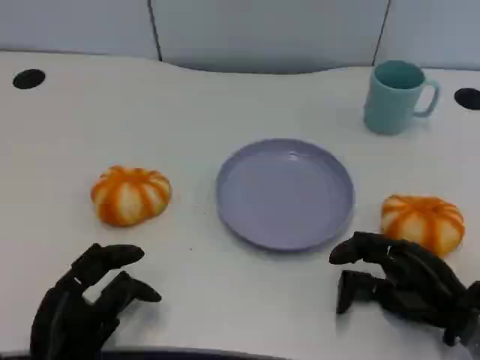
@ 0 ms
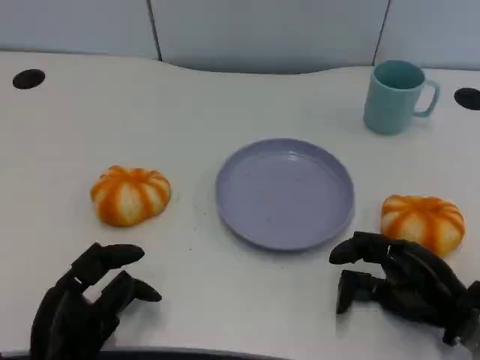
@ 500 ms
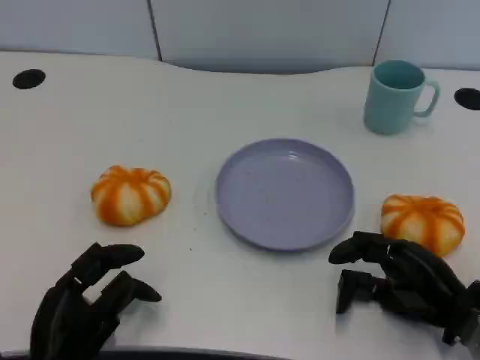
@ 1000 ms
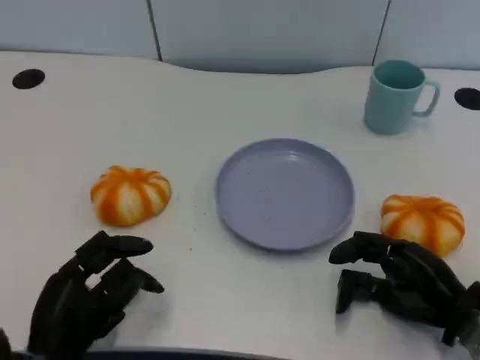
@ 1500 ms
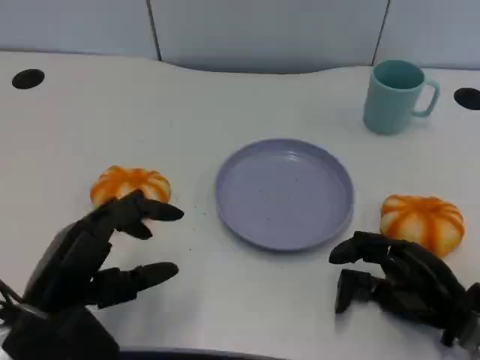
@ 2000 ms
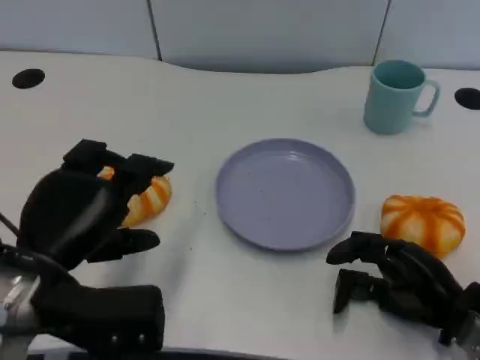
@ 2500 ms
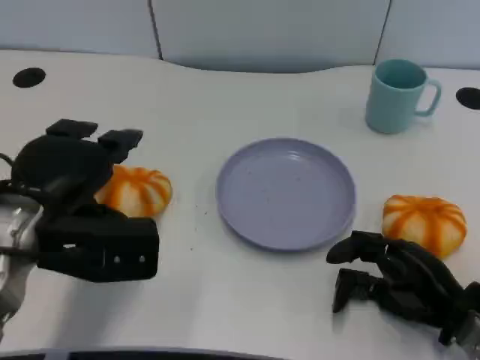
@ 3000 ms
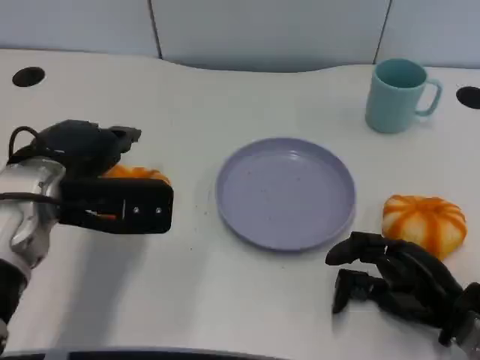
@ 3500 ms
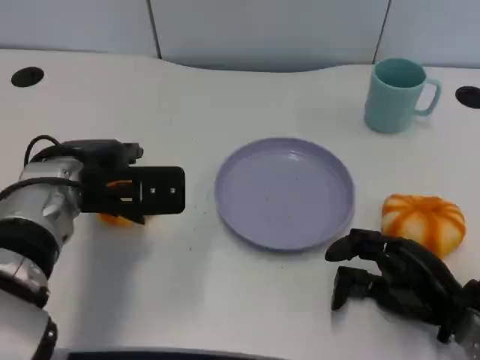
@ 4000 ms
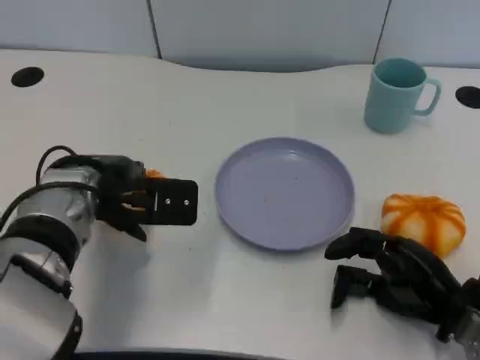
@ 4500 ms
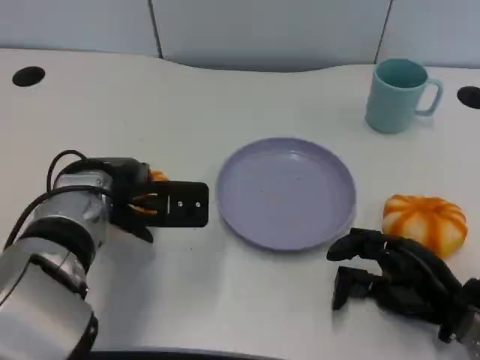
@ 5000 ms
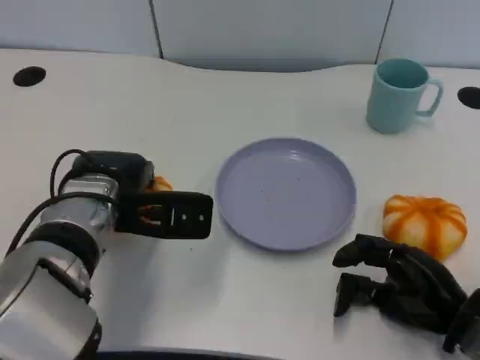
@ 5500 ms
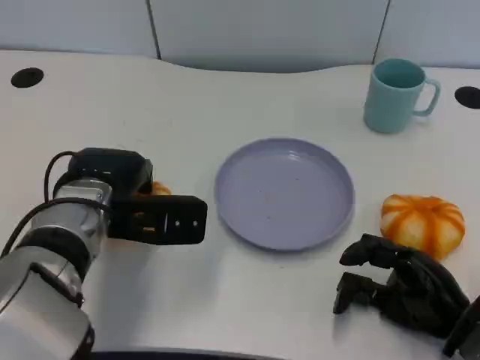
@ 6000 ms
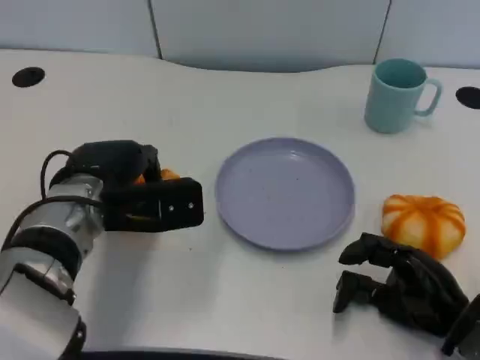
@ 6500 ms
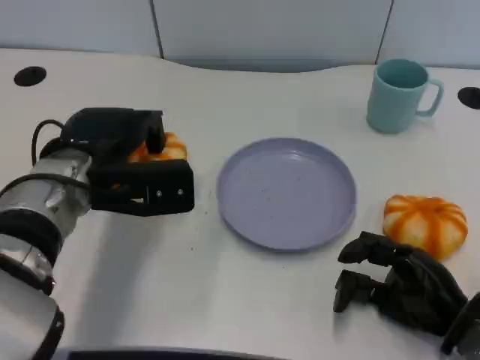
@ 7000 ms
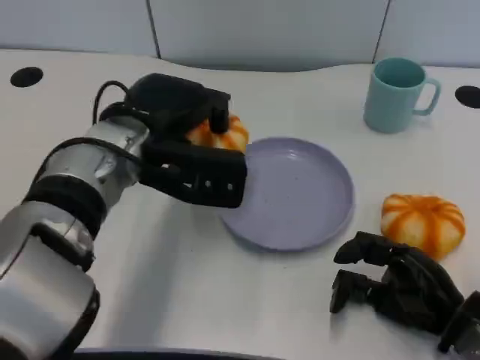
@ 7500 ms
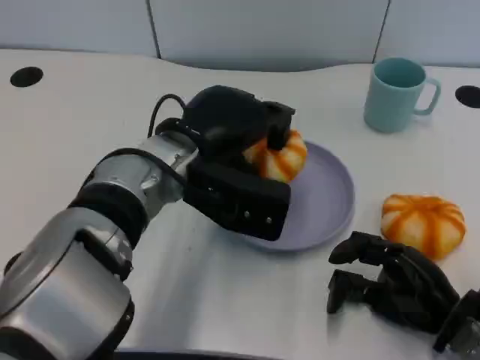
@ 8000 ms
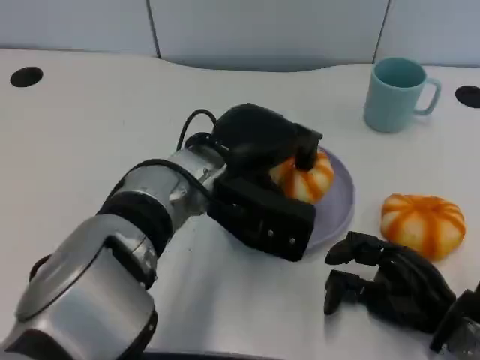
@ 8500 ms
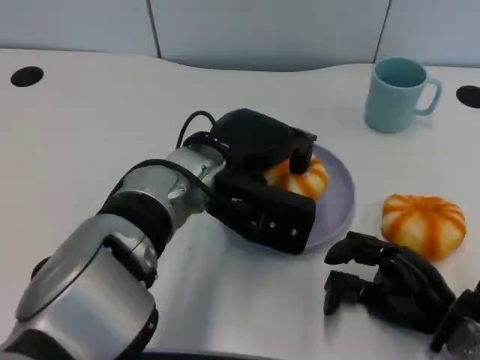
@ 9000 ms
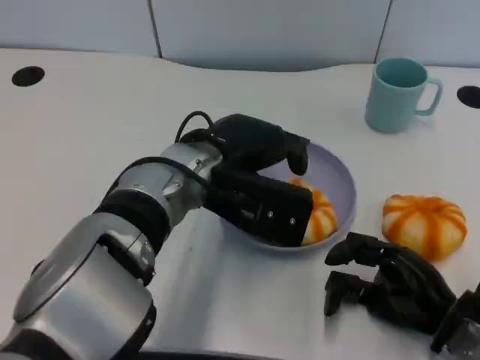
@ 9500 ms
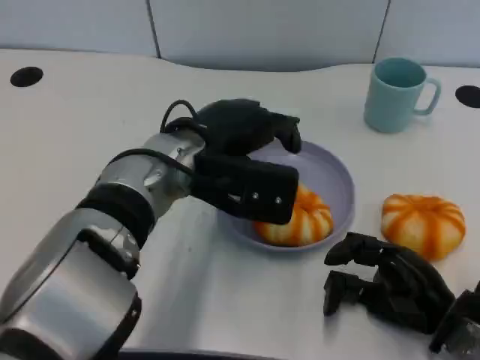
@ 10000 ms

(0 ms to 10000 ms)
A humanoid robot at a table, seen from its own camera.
Task of the whole recording: Grasp the bread from the table and place it into the plate.
0 ms - 2000 ms: The left hand shifts approximately 10 cm upward.
2000 ms - 4000 ms: The left hand travels forward by about 15 cm.
4000 ms - 6000 ms: The hands move only a little.
6000 ms - 8000 ms: The left hand shifts approximately 10 cm to the right and upward.
8000 ms - 10000 ms: The hands stay close to where they were, moving slightly.

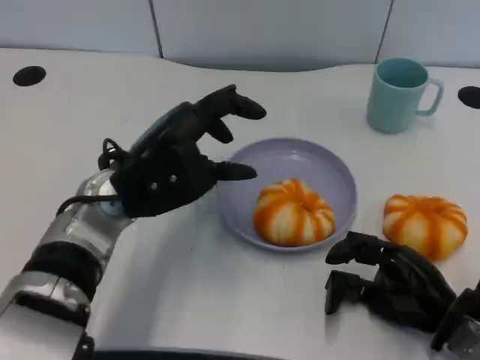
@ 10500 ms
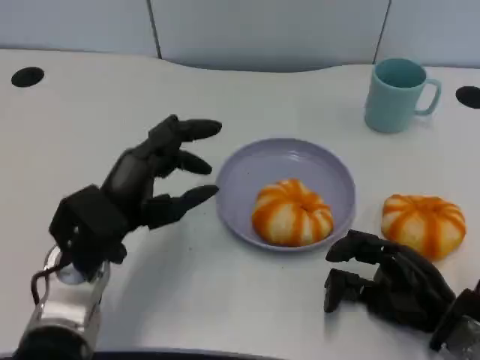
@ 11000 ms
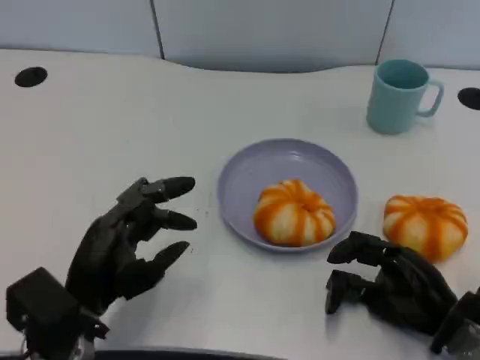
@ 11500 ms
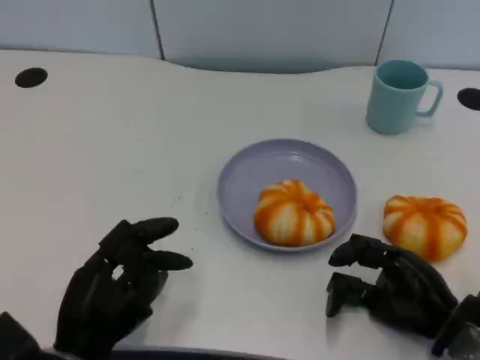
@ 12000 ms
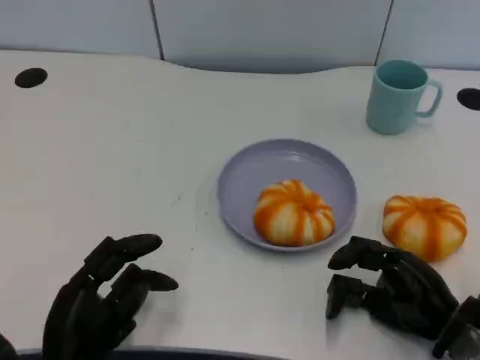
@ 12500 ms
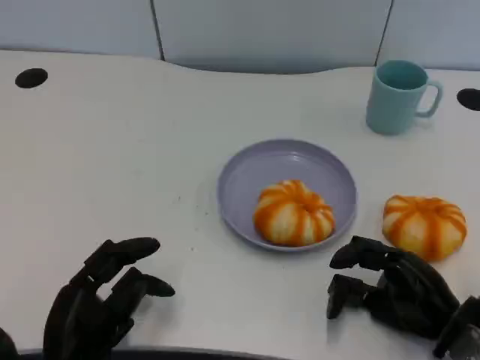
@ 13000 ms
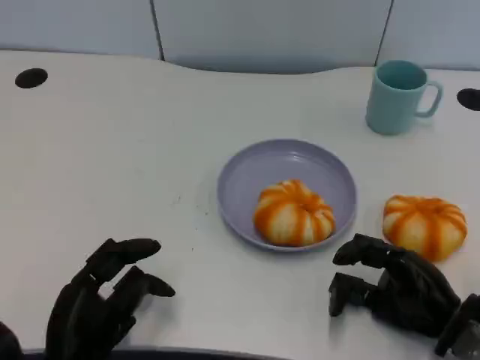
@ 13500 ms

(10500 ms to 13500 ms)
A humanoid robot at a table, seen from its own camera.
Task of the whole recording: Grasp the bread from the table and place it into the plate.
10500 ms - 12000 ms: The left hand goes about 20 cm backward, downward and to the left.
12000 ms - 13500 ms: The hands stay close to where they were, moving slightly.

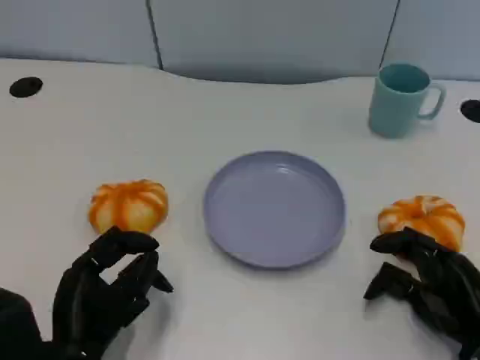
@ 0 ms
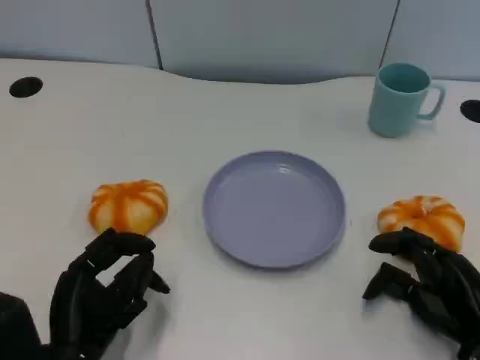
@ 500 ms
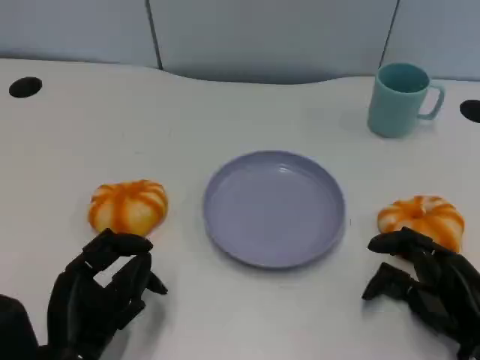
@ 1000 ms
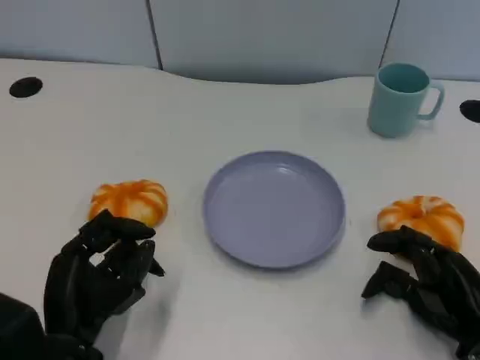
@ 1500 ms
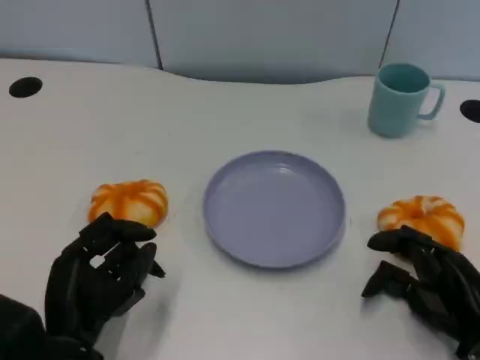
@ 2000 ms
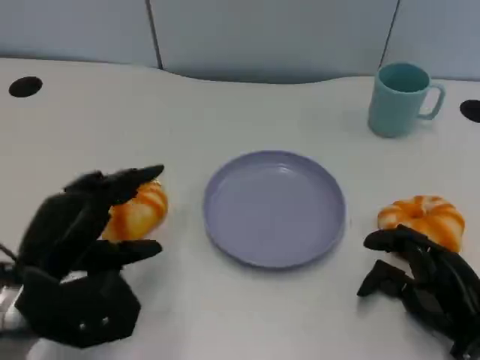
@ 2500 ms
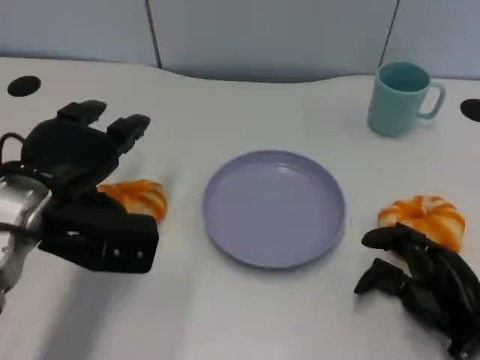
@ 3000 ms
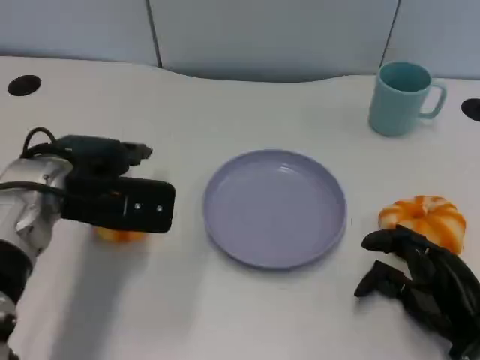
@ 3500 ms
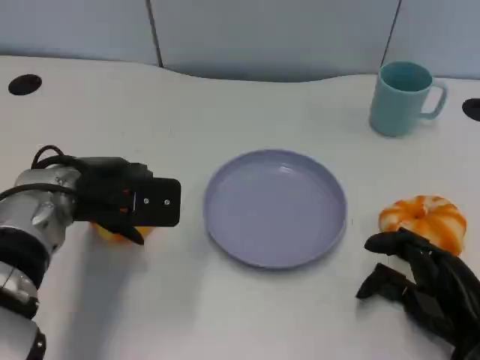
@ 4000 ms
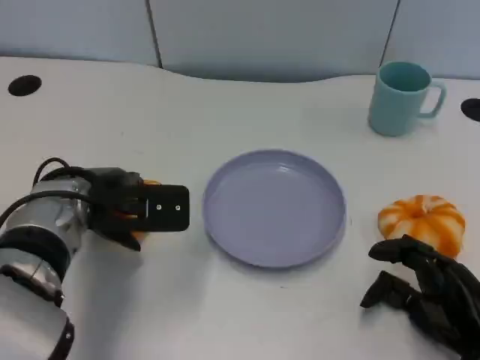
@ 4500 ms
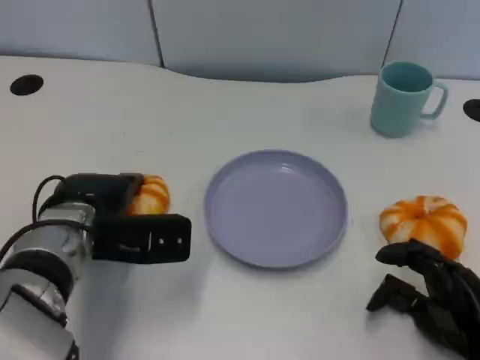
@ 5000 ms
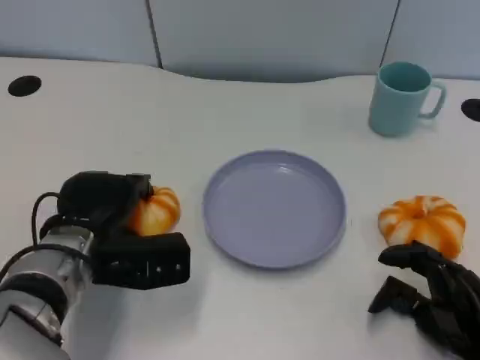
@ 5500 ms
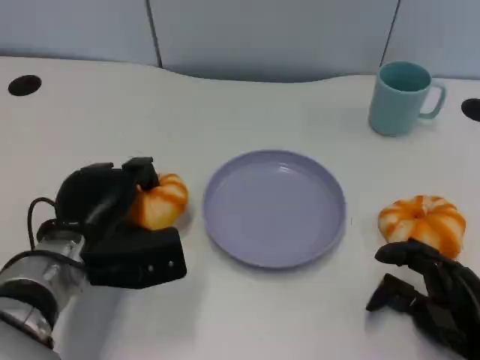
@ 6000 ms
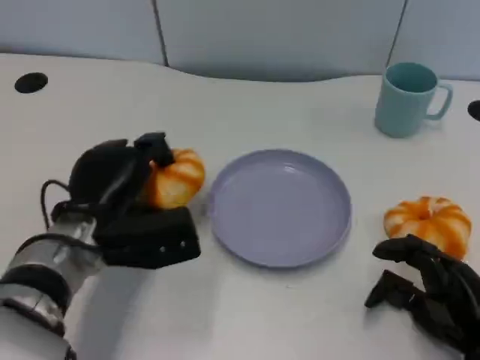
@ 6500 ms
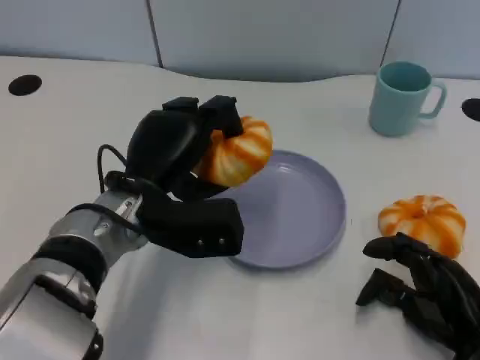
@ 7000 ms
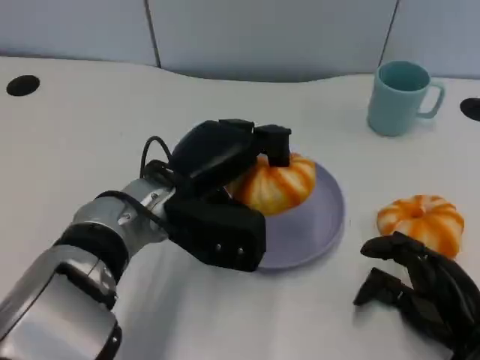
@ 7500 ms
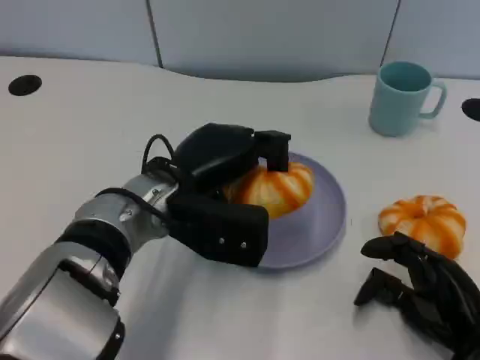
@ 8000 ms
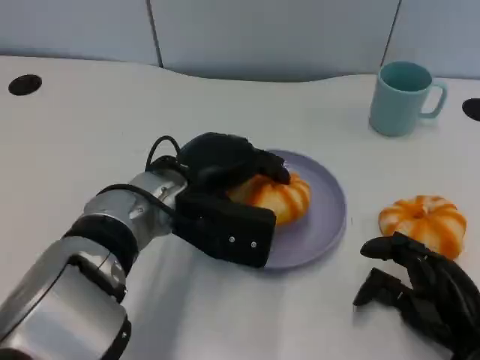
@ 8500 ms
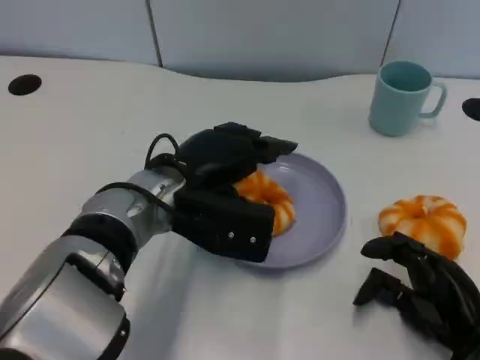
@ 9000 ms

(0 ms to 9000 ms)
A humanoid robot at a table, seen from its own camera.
Task of the whole recording: Grasp the bread from the table and place it into the plate.
0 ms - 2000 ms: The hands move only a little.
2000 ms - 4500 ms: The left hand goes about 15 cm forward and upward.
4500 ms - 7000 ms: The left hand moves to the right, some 5 cm.

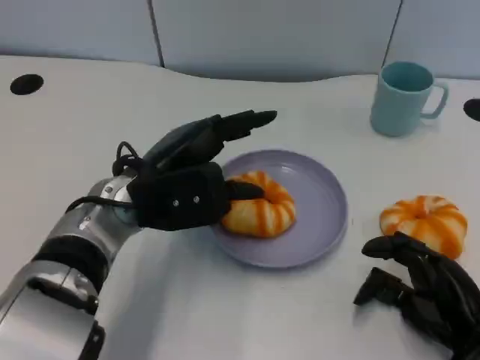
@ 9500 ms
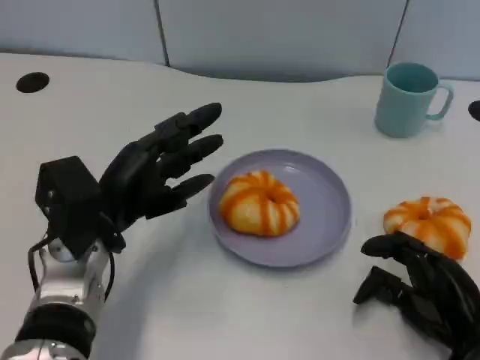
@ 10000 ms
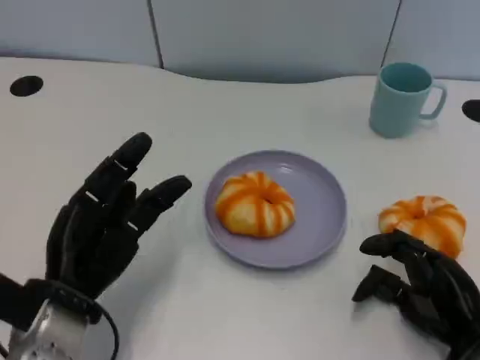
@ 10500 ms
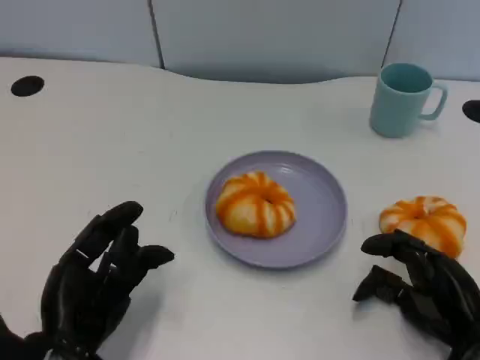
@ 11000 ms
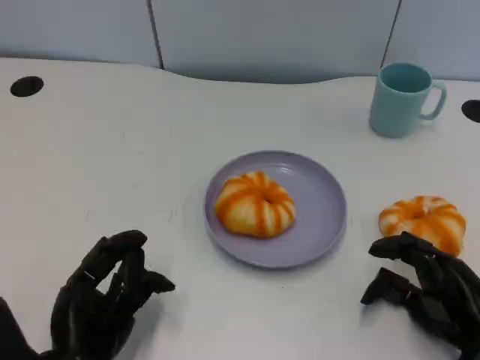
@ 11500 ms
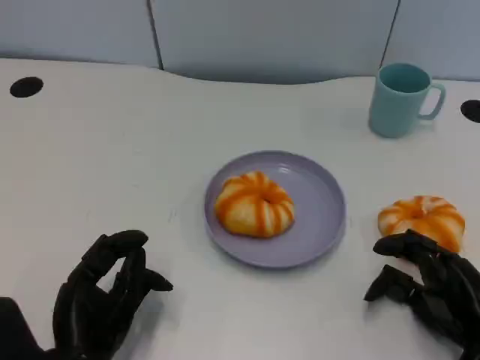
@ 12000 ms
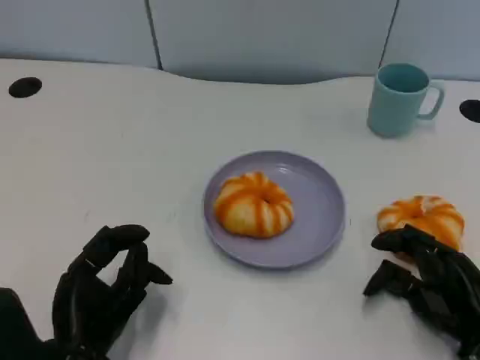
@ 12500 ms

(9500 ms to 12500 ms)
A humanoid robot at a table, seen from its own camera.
Task of the whole recording: Grasp the bread from the table and place it into the plate.
9500 ms - 11000 ms: The left hand shifts some 15 cm backward, to the left and downward.
11000 ms - 12500 ms: The hands make only small movements.
